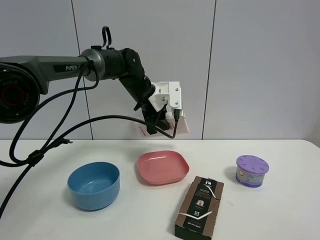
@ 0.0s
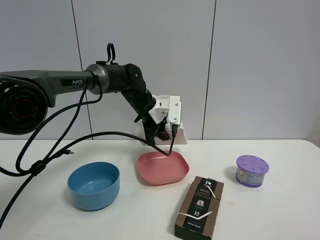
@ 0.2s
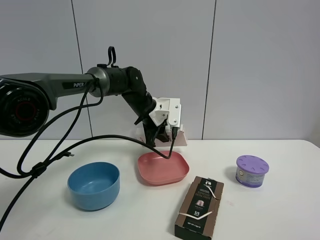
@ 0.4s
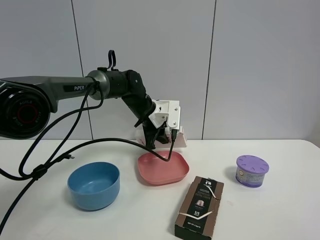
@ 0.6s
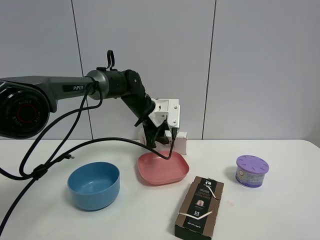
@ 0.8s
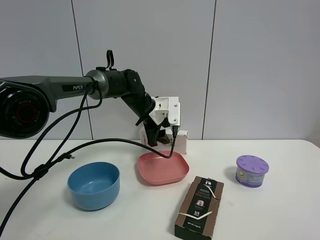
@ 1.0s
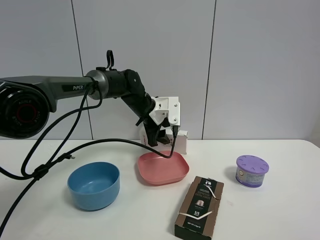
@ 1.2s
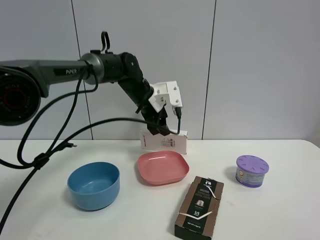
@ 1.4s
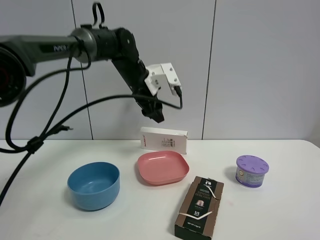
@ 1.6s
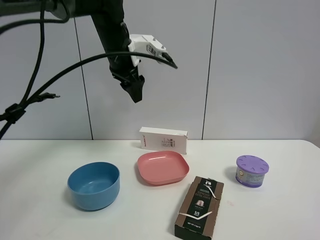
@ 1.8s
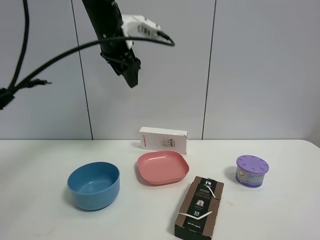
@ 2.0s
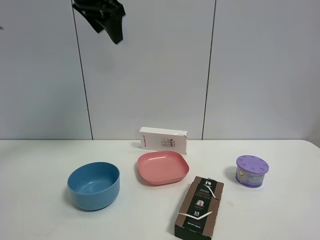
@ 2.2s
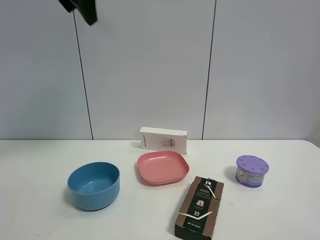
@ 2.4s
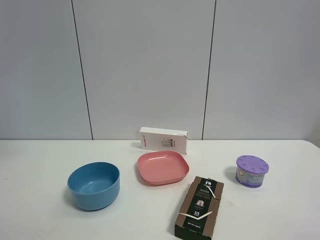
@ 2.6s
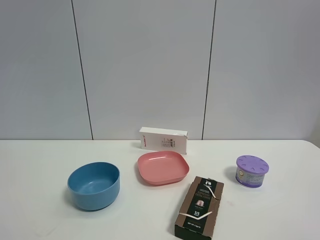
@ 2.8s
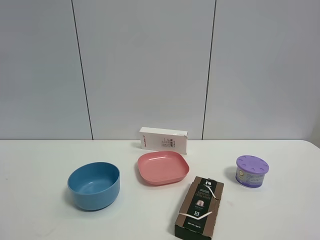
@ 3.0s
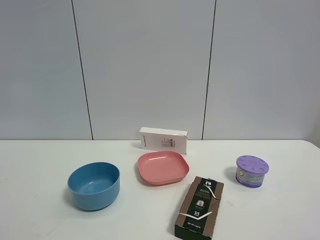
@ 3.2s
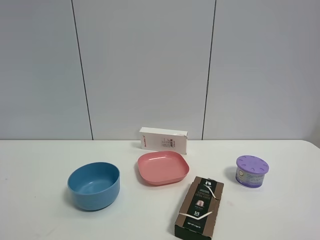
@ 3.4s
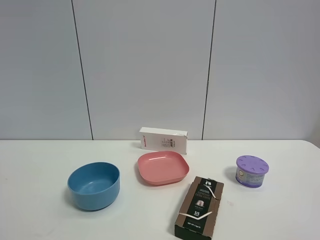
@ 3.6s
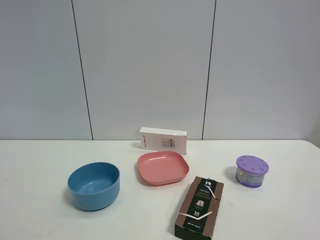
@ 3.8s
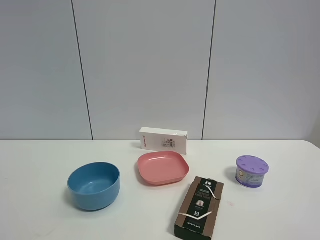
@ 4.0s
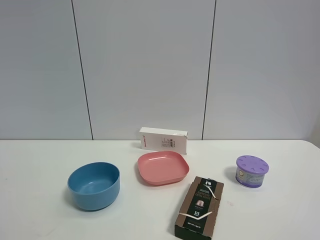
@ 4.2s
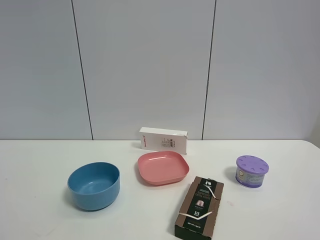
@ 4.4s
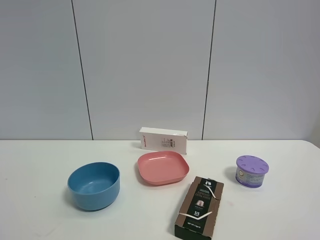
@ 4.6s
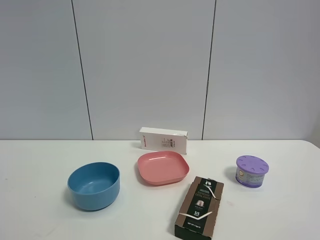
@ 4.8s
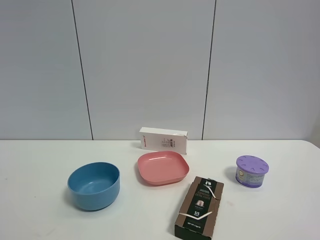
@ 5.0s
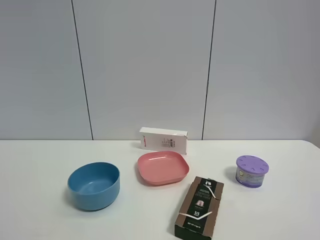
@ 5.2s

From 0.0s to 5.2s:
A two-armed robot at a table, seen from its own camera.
Task of the whole recording: the gripper move the object.
From 0.0s to 1.8s: The left gripper travels upward by approximately 15 cm, and opens its fingers.
From 1.8s to 3.4s: The left gripper travels backward and to the left by about 50 cm.

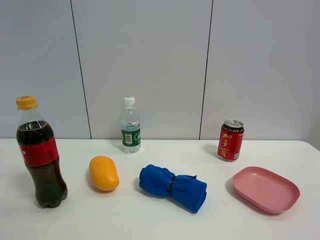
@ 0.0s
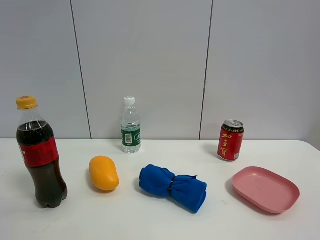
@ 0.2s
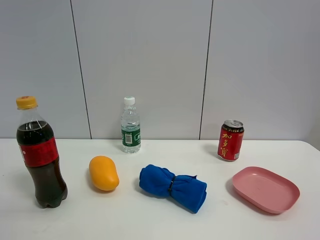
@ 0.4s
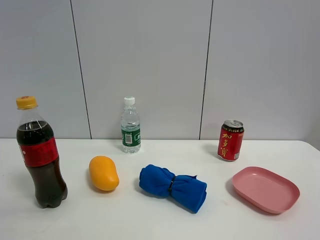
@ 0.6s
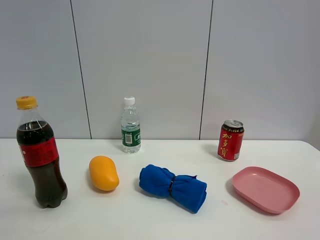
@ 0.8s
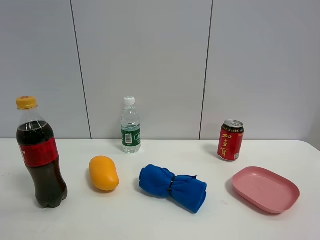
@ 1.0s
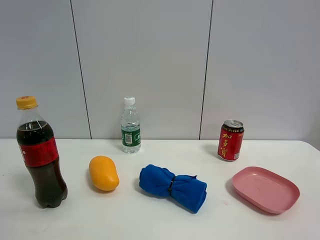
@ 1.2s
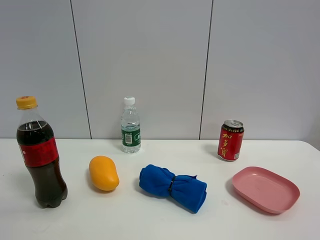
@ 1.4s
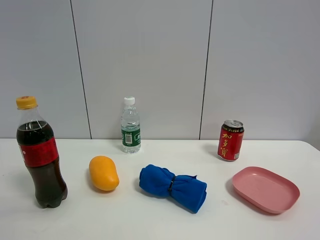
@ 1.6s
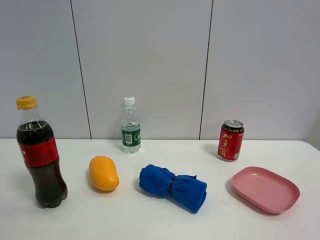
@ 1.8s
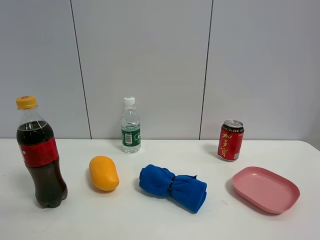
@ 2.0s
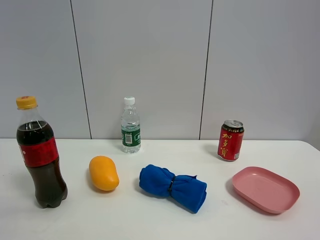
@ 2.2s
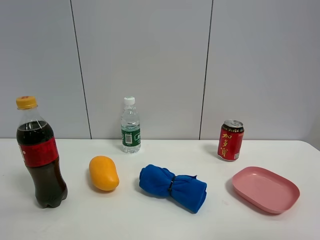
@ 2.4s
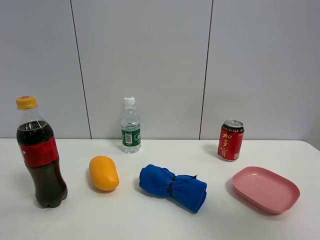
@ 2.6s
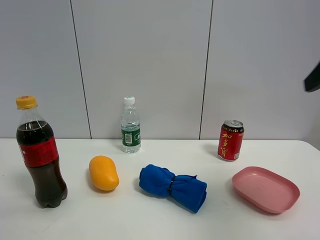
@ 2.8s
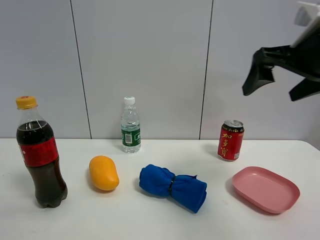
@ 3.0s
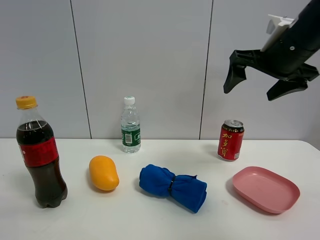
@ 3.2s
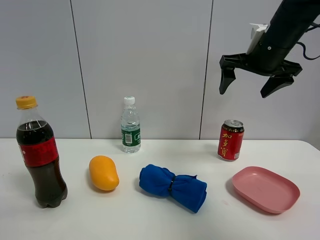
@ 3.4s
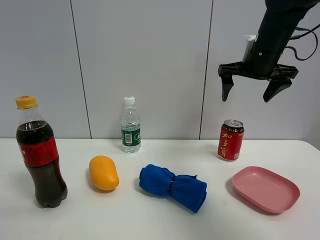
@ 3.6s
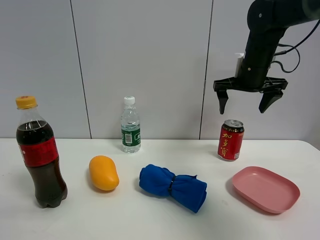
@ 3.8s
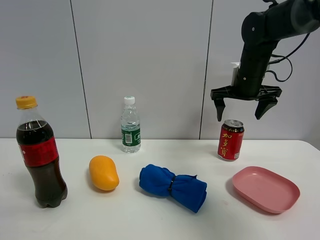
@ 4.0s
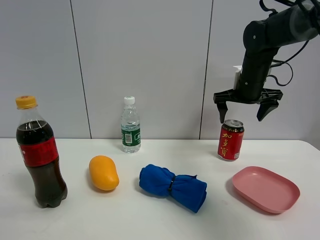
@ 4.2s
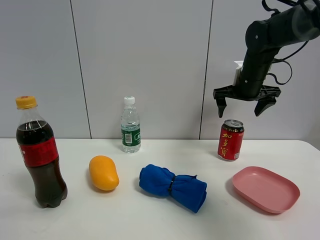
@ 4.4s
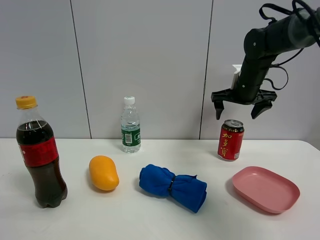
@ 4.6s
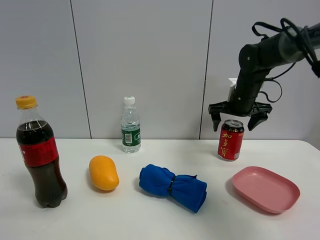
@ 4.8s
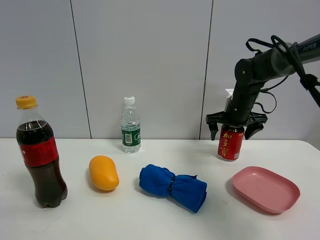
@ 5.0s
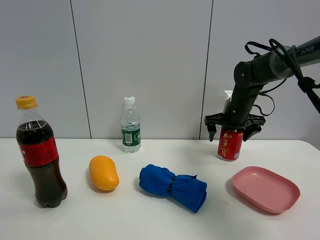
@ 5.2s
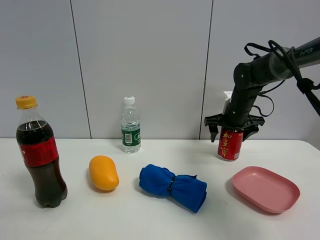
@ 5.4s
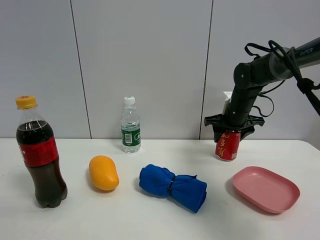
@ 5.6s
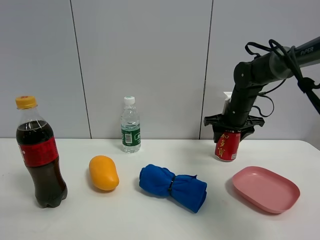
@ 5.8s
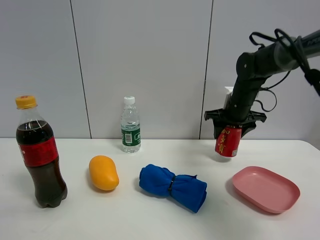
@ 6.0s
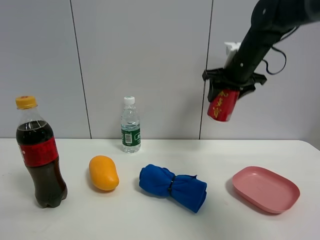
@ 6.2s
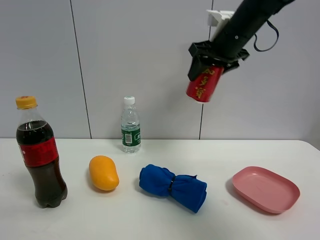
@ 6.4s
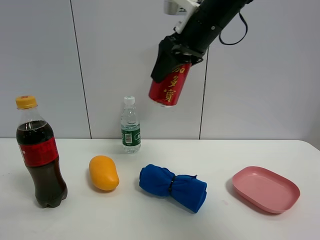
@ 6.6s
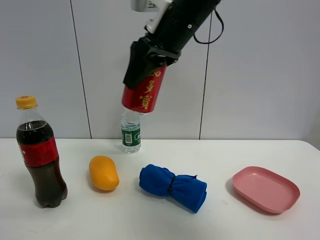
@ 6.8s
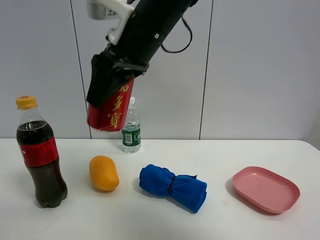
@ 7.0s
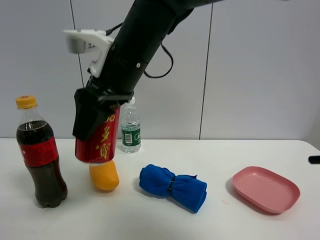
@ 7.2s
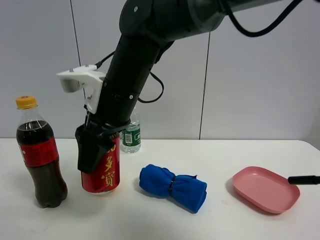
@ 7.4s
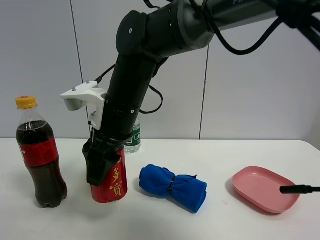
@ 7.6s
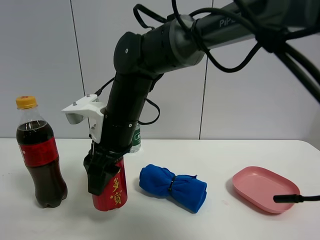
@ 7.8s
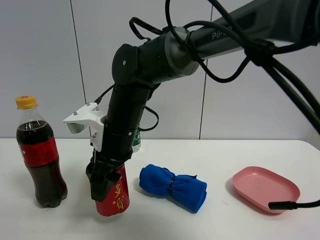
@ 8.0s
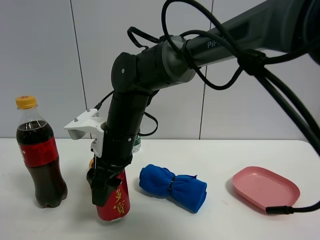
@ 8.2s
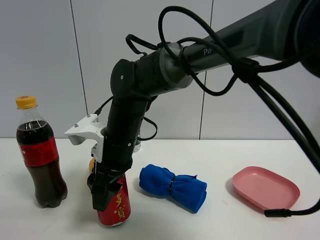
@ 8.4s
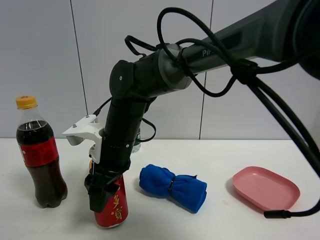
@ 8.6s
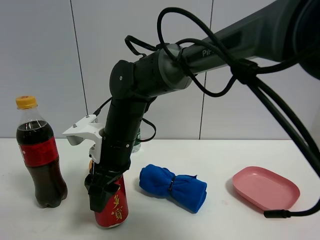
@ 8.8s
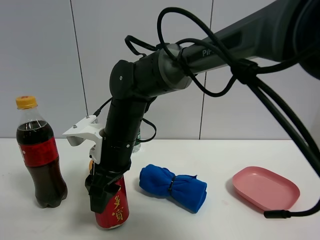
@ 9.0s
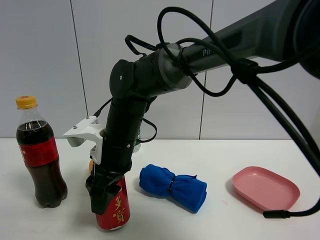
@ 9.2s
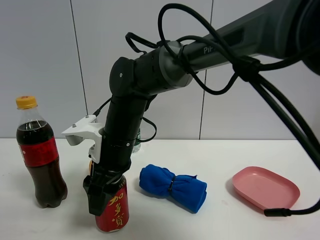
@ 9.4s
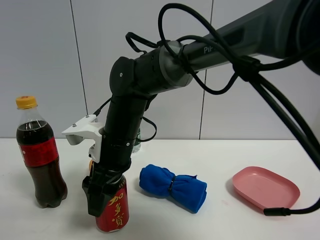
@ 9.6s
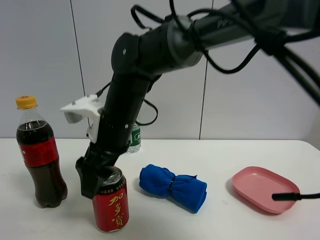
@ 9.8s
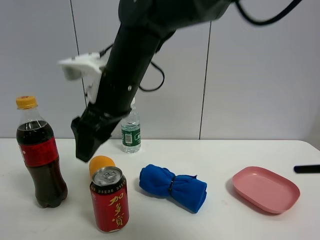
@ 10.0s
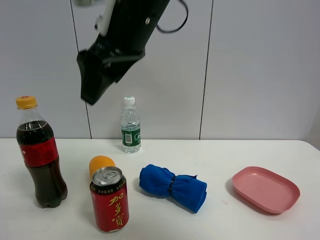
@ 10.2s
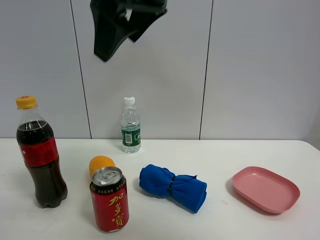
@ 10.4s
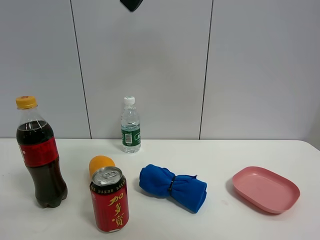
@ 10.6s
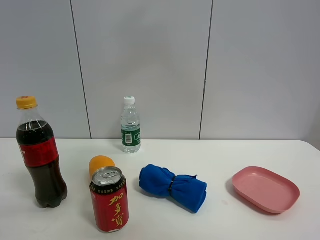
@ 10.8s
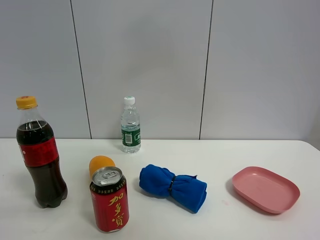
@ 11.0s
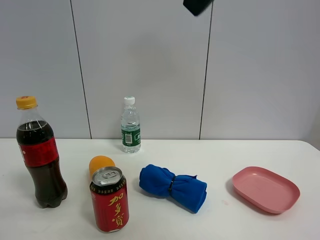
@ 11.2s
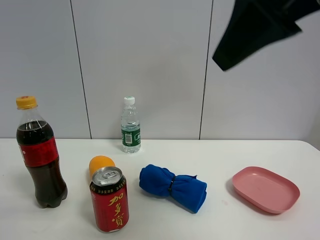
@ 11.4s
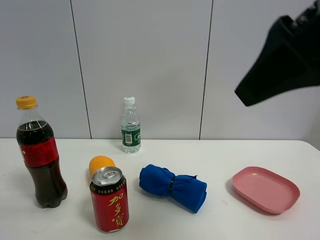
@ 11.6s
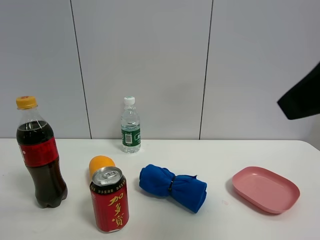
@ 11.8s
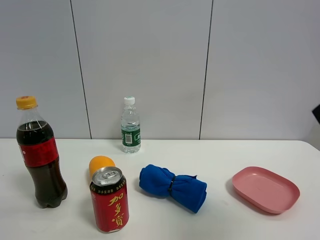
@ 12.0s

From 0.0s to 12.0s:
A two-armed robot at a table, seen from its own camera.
Task of the whole recording: the gripper move the object.
Step, from 0.0s to 5.6s: Grasp the Jia Duo Bao with the right gripper.
Step, from 5.8s to 9.8s: Place the Jia Duo Bao on the table with the right gripper.
From 1.6s to 3.0s: The right gripper travels forward by roughly 30 cm, and opens up.
From 3.0s to 4.4s: The right gripper is displaced forward and downward by approximately 20 cm.
From 4.4s to 6.0s: The right gripper closes.
From 6.0s to 7.6s: The right gripper is displaced to the left and backward by some 30 cm.
From 7.6s to 9.0s: The right gripper travels downward by roughly 5 cm.
From 9.0s to 10.4s: The right gripper goes approximately 25 cm upward, and opens its fingers.
From 10.4s to 12.0s: The right gripper heads to the right and backward, covering roughly 30 cm.

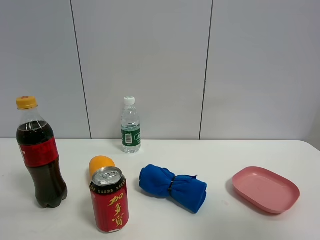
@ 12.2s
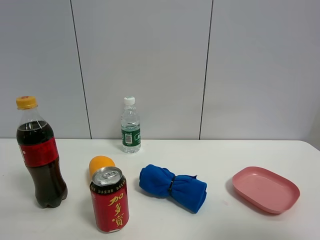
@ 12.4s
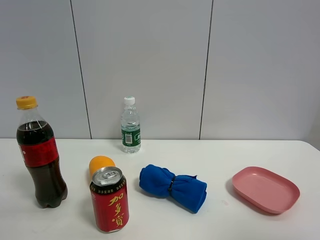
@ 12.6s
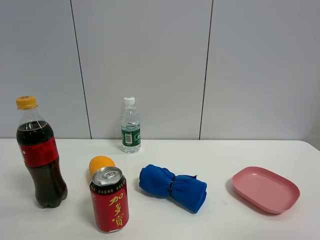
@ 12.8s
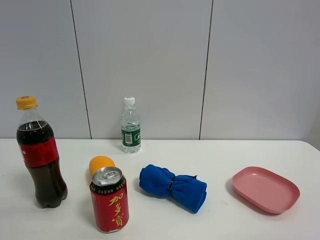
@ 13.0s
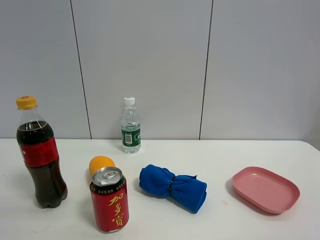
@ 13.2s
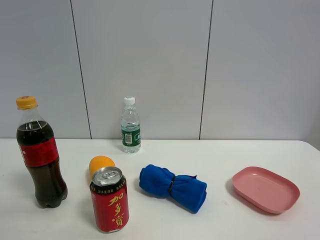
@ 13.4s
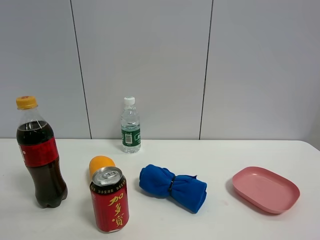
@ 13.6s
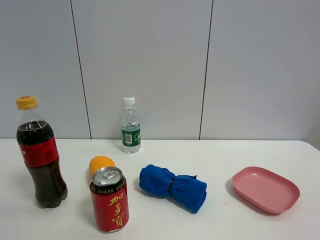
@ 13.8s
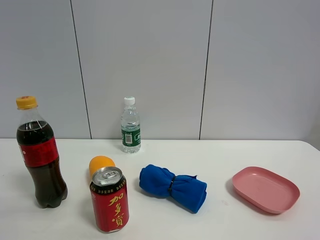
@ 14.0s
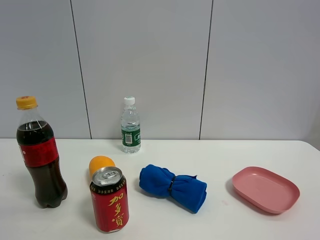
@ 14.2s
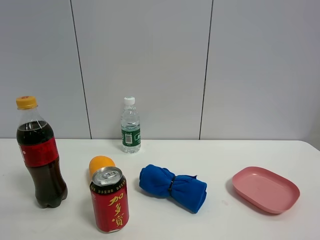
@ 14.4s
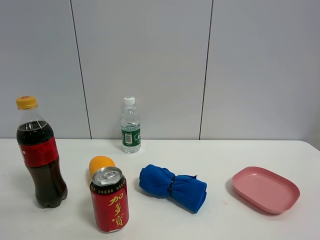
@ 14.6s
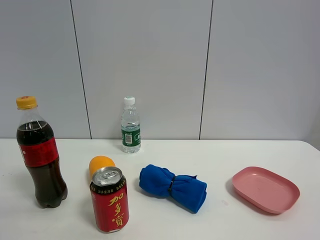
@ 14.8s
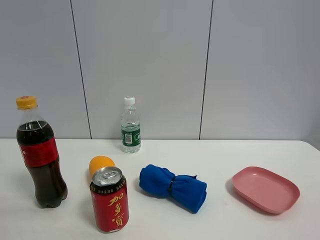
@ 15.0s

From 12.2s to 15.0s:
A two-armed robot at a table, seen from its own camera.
Task of the whole recording: the gripper move the object.
From 12.2s to 13.6s: The right gripper goes roughly 10 cm backward.
From 13.6s to 15.0s: Neither gripper changes place.

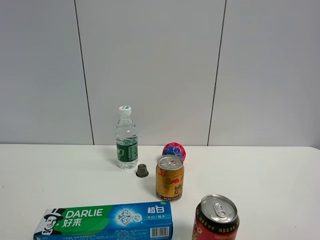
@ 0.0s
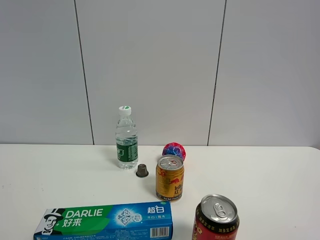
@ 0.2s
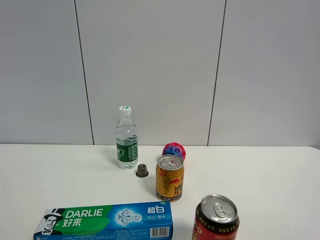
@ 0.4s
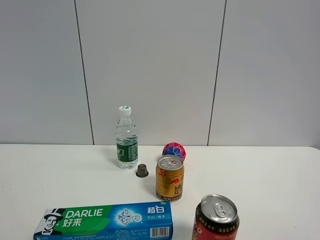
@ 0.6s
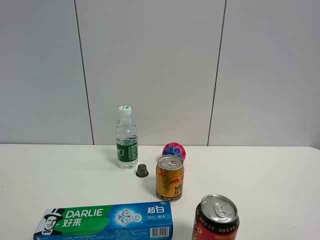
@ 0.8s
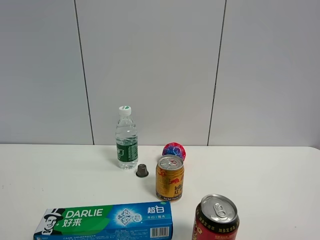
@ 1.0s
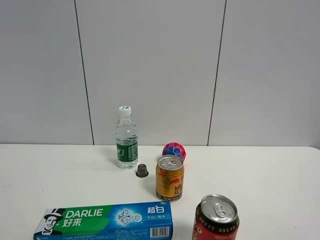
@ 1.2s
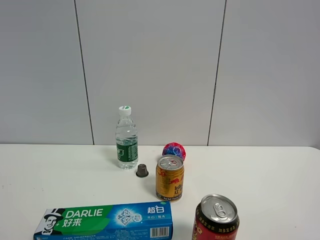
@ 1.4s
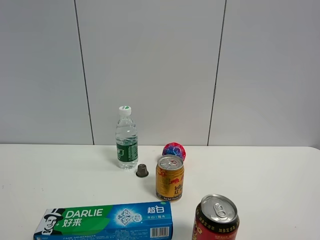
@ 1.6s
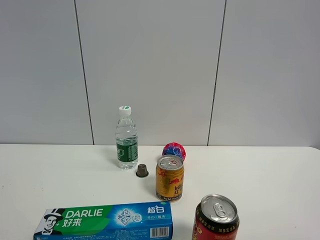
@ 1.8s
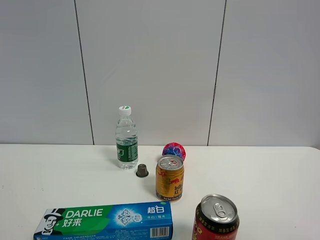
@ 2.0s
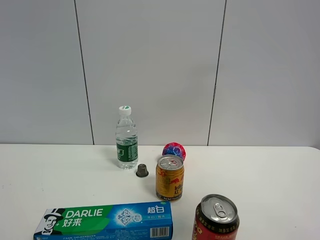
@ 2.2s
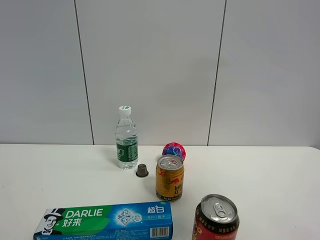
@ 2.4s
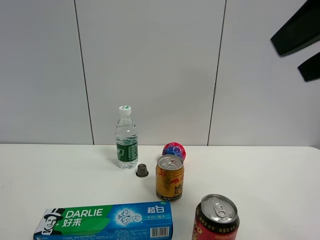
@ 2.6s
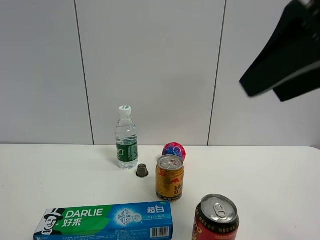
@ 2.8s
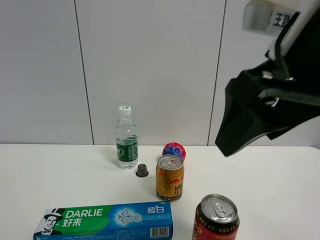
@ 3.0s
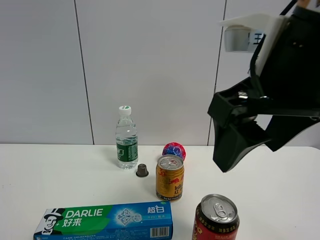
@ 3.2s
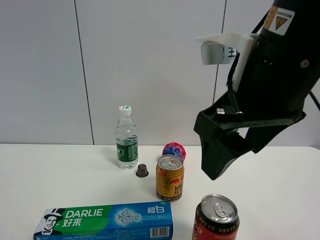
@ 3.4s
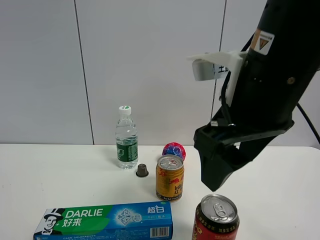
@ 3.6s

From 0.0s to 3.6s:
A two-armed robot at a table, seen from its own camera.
Task of the whole recording: the gripper move the object.
From 1.8s to 3.6s: The right gripper travels forward and to the left by about 25 cm.
